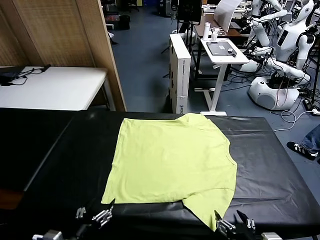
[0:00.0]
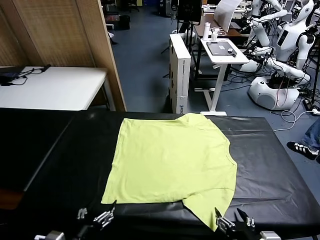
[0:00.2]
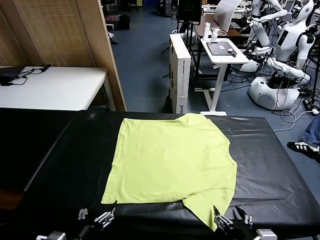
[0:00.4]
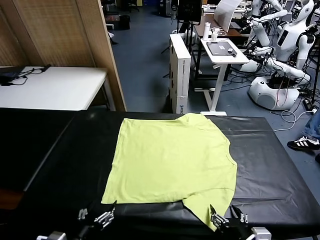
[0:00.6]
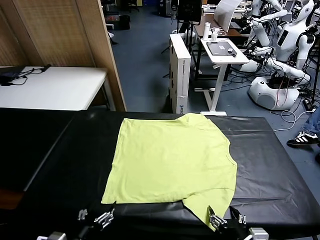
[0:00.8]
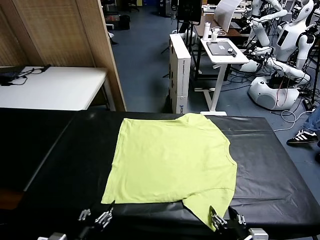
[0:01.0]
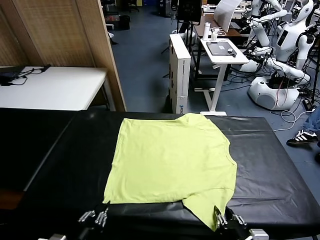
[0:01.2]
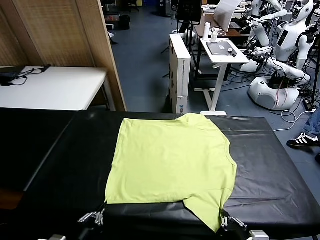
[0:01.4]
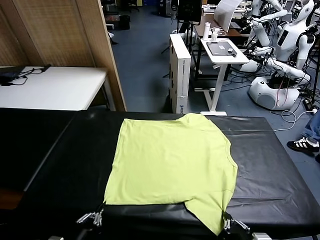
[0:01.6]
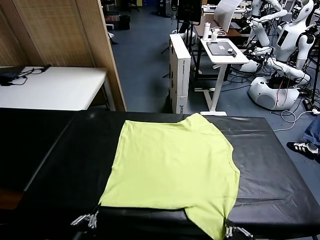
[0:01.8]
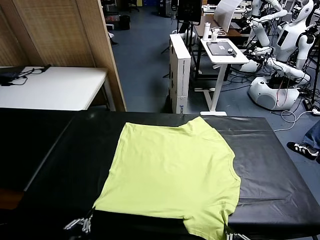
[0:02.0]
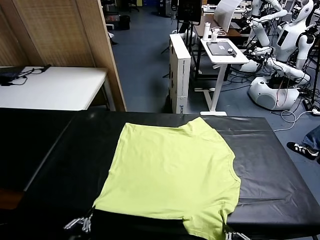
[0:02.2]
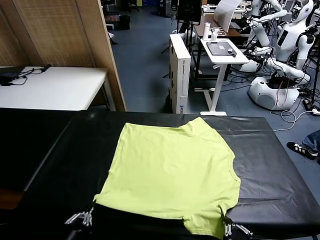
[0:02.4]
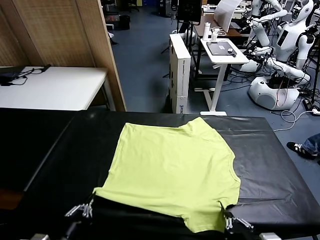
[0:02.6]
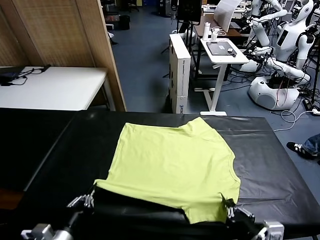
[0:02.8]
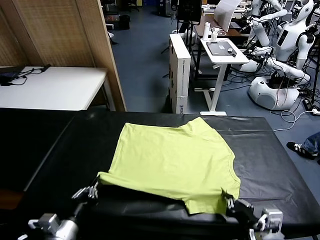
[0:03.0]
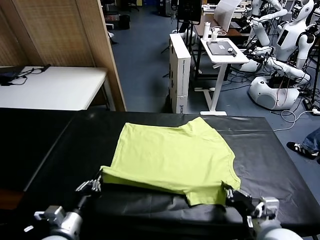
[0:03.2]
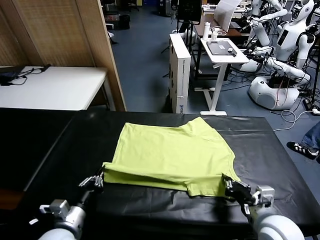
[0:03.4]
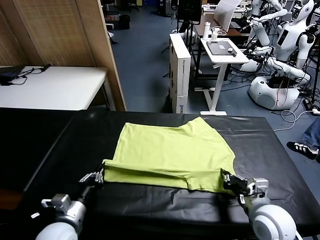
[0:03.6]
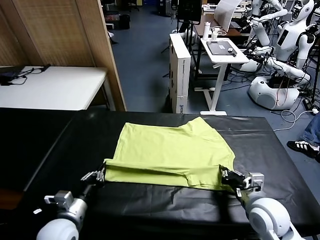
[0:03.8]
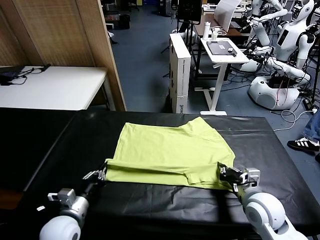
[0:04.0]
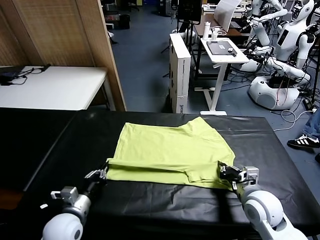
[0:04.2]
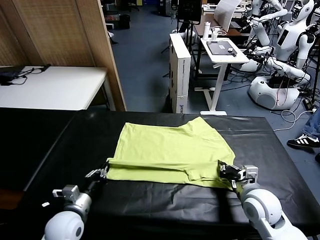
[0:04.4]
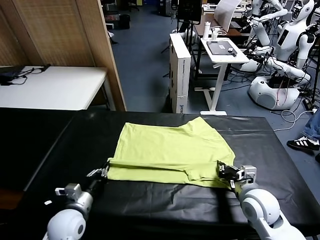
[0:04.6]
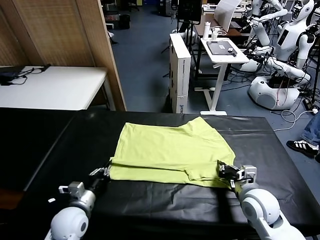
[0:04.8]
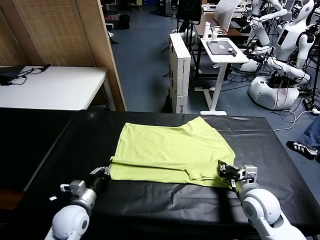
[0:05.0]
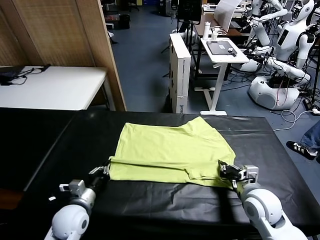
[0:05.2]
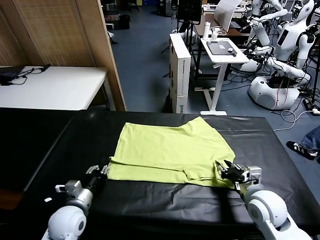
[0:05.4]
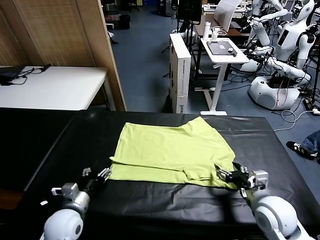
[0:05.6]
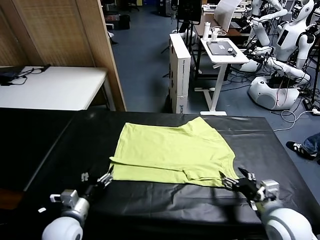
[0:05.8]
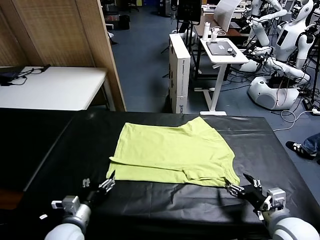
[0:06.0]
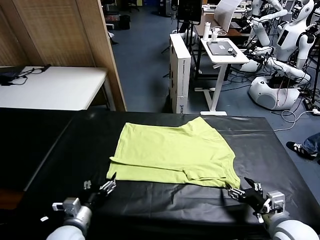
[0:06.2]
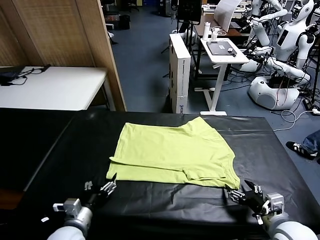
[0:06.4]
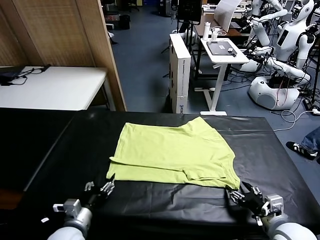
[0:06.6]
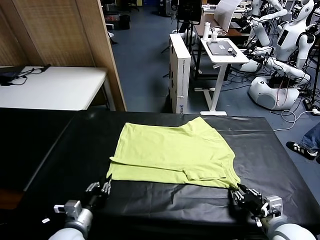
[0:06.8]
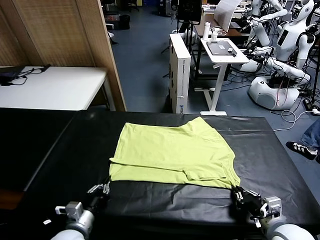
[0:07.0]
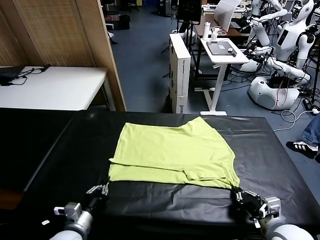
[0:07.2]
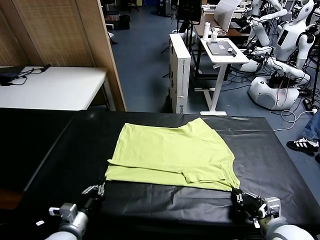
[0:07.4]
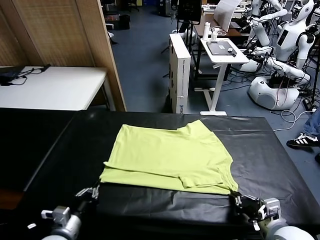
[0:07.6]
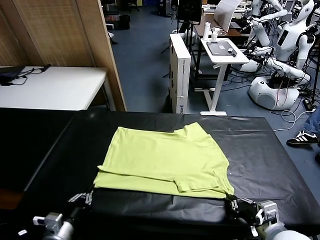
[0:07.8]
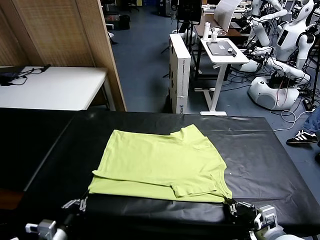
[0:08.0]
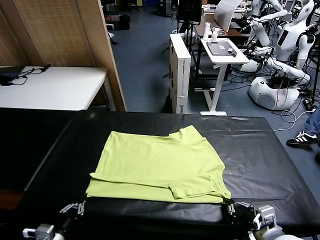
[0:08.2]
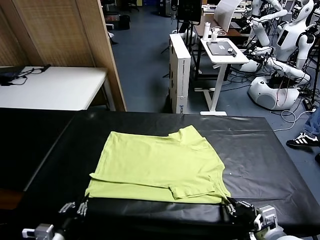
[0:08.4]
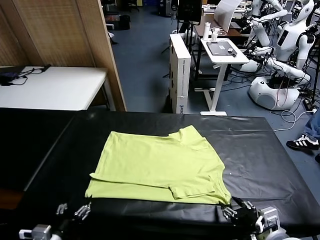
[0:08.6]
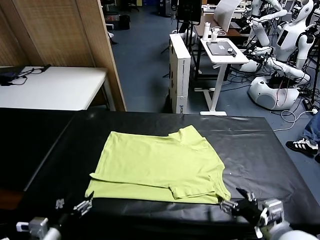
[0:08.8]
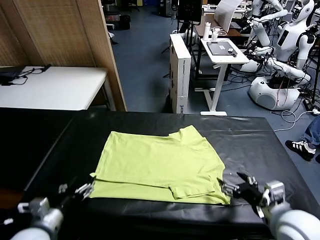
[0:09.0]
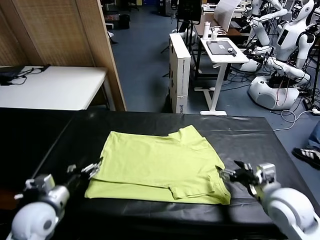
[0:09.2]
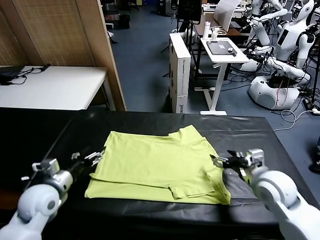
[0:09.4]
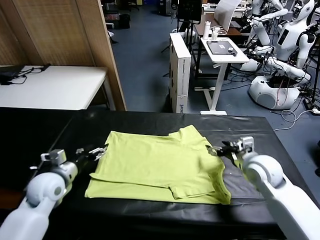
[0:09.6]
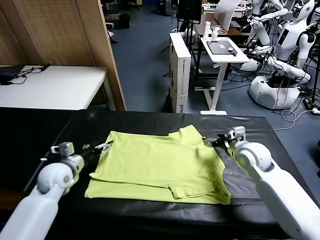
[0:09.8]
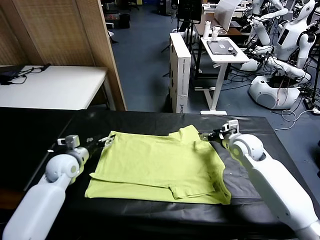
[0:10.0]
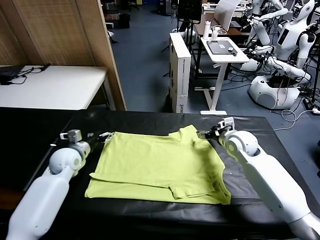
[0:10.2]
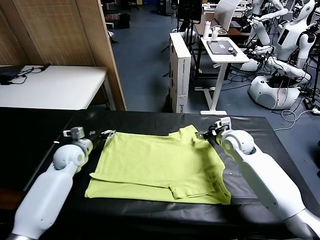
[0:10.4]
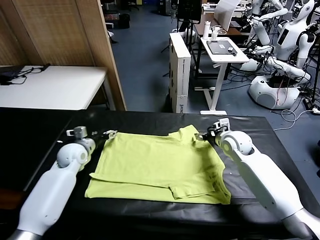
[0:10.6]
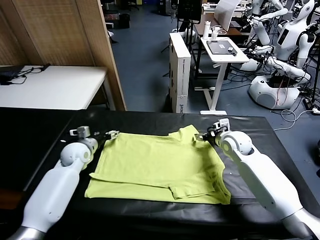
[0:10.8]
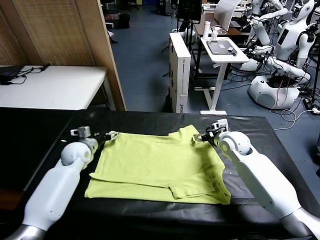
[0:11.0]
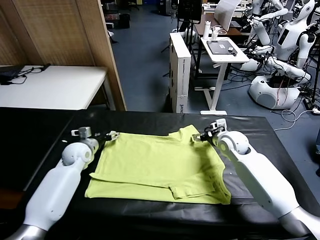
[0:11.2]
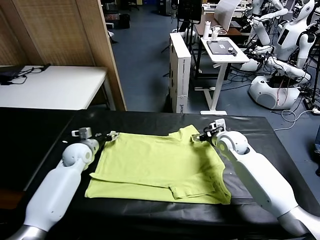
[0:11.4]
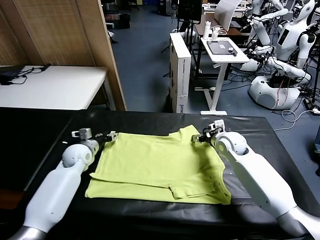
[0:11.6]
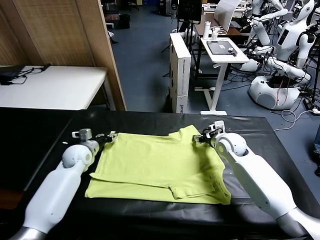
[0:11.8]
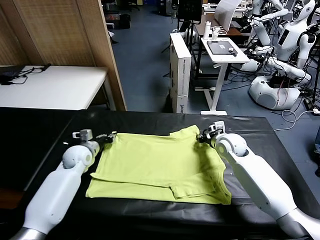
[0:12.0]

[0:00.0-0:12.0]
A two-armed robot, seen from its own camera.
Task of the whole recording: fold and organize the clothes.
Step, 0.0 to 1.4 s: use both grippers simultaneously to clamp the lower edge of the clothing fabric.
Step, 1.6 to 5.4 s: use both grippers to drag the lower edge of the fabric forward and fold it over the upper edge.
Step, 5.6 to 8.6 s: Drag the clothes downward with both gripper.
1.6 to 3.0 s: The two grippers go roughly 10 cm forward.
3.0 to 4.4 s: Both grippers travel together forward, about 10 cm.
4.4 to 6.0 s: The left gripper travels backward by approximately 5 cm, and opens up. The right gripper travels backward and to the right by roughly 10 cm, and opens up.
6.0 to 7.6 s: The right gripper ends up roughly 5 cm from where it was, and closes up; the left gripper moves backward, about 5 cm, and closes up.
7.6 to 9.0 s: The right gripper shifts about 10 cm forward, and opens. Meanwhile the left gripper goes roughly 15 cm forward and upward, and opens up.
9.0 to 10.4 s: The grippers both shift forward by roughly 20 cm.
10.4 to 12.0 s: The left gripper closes up; the right gripper closes.

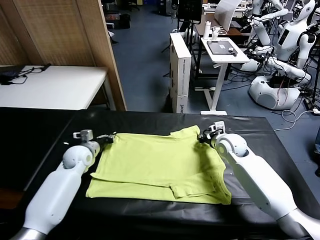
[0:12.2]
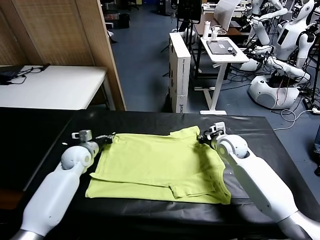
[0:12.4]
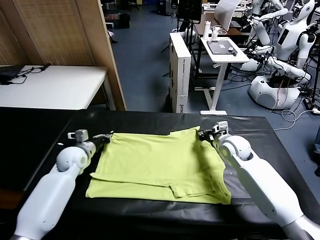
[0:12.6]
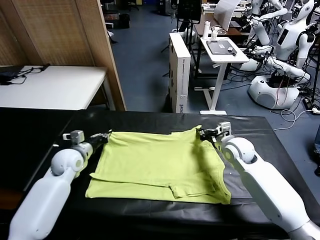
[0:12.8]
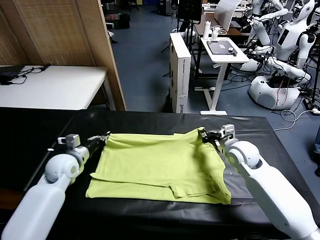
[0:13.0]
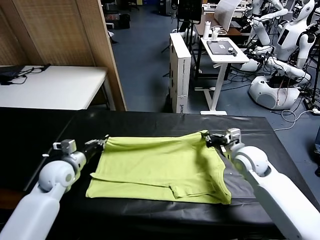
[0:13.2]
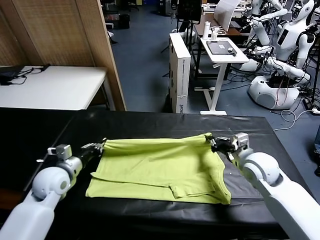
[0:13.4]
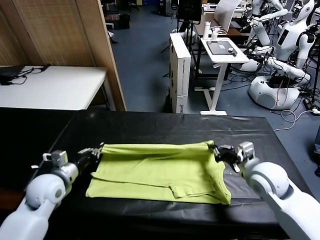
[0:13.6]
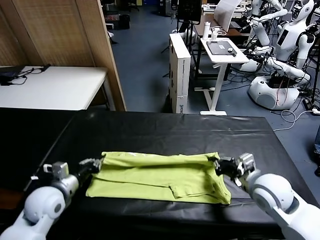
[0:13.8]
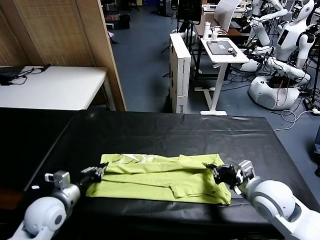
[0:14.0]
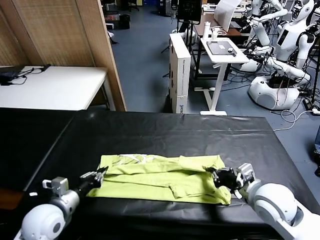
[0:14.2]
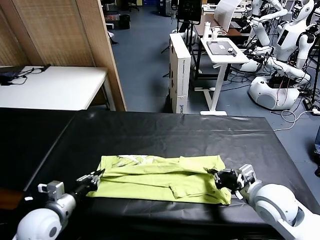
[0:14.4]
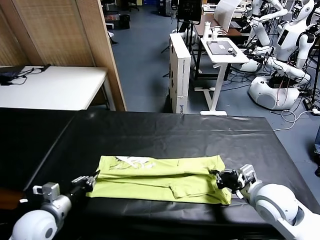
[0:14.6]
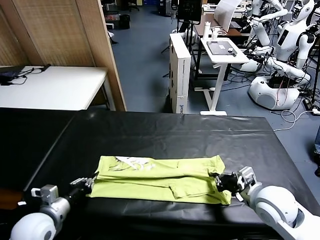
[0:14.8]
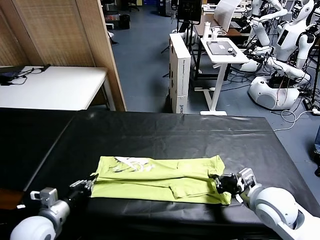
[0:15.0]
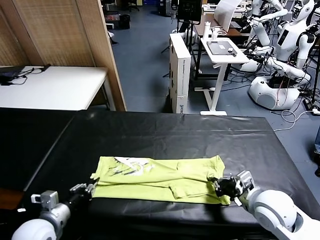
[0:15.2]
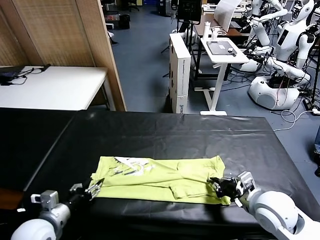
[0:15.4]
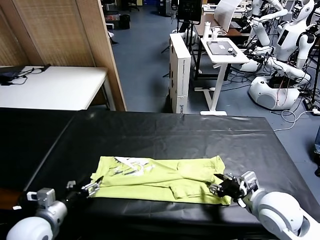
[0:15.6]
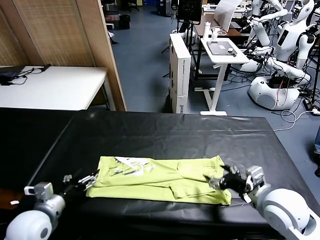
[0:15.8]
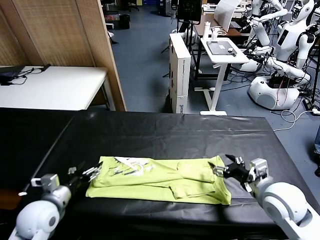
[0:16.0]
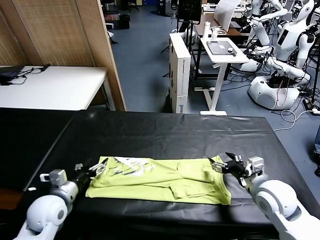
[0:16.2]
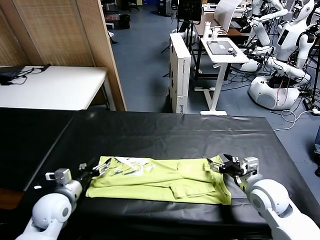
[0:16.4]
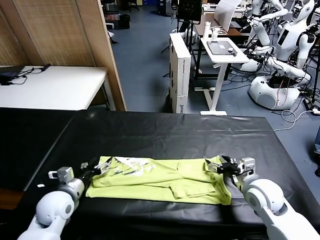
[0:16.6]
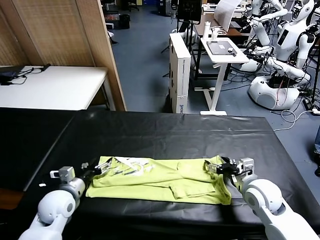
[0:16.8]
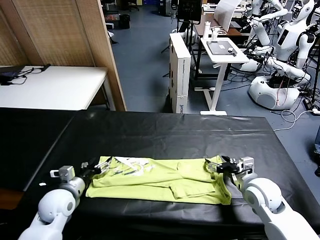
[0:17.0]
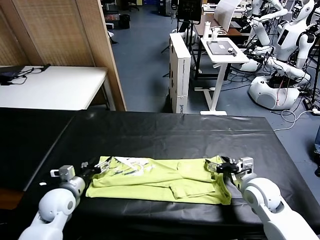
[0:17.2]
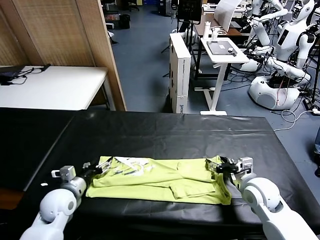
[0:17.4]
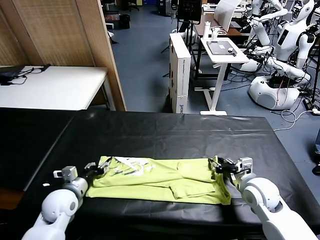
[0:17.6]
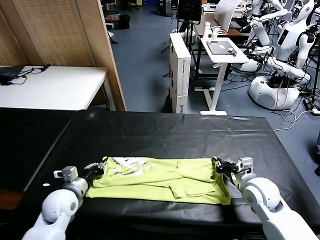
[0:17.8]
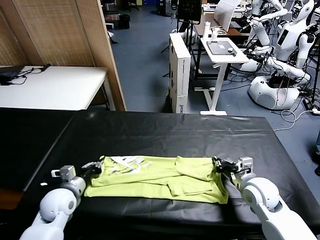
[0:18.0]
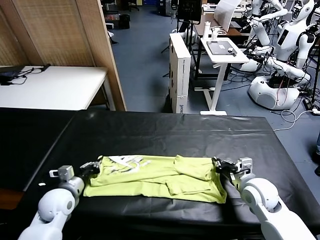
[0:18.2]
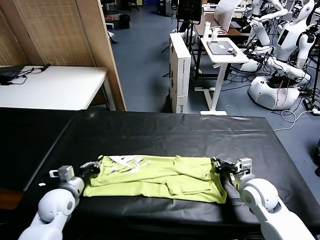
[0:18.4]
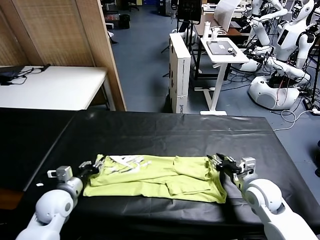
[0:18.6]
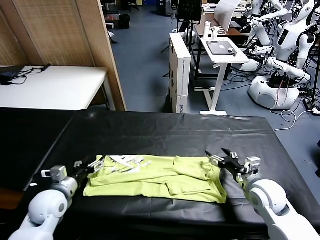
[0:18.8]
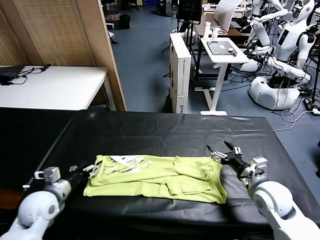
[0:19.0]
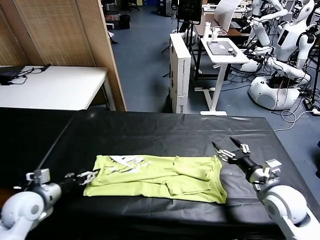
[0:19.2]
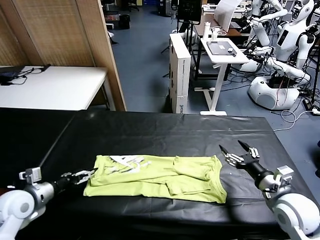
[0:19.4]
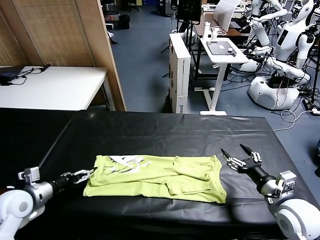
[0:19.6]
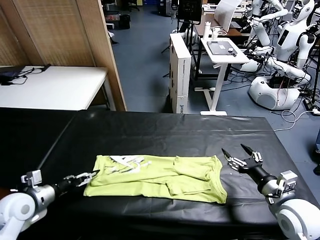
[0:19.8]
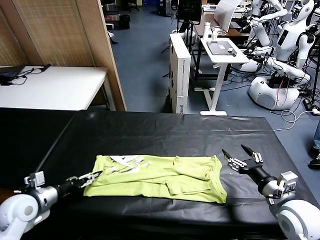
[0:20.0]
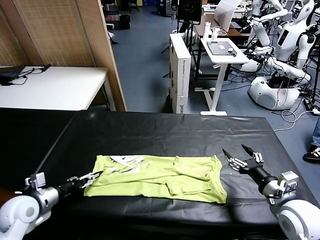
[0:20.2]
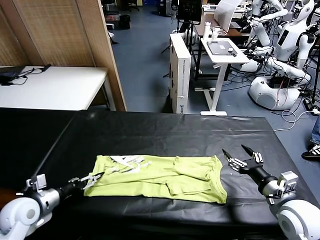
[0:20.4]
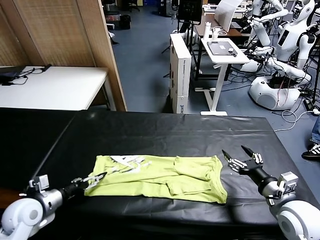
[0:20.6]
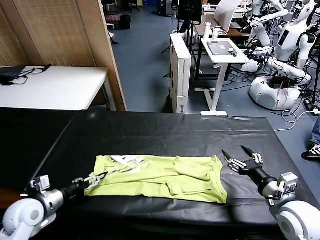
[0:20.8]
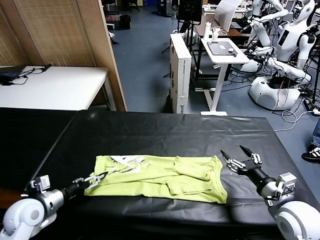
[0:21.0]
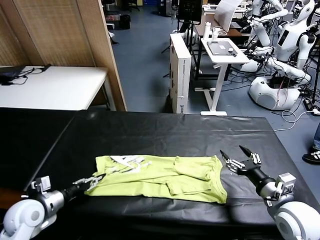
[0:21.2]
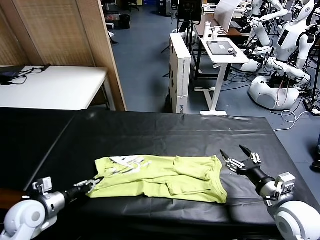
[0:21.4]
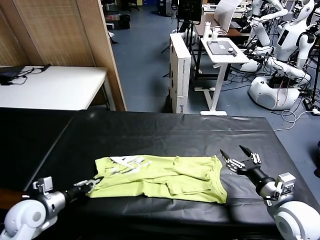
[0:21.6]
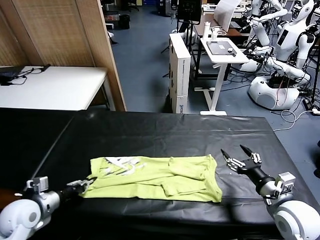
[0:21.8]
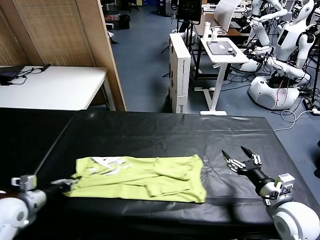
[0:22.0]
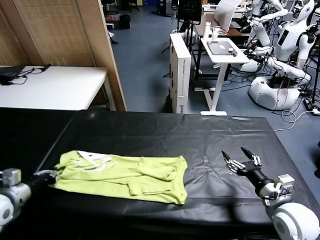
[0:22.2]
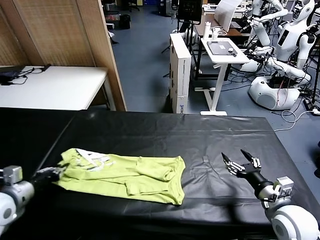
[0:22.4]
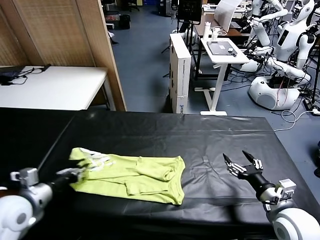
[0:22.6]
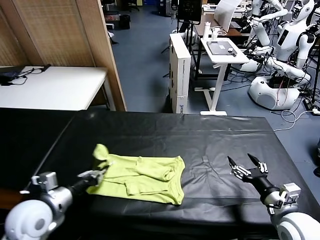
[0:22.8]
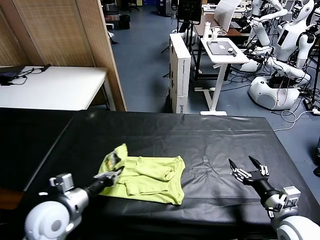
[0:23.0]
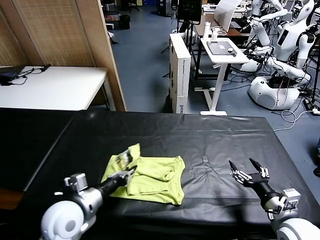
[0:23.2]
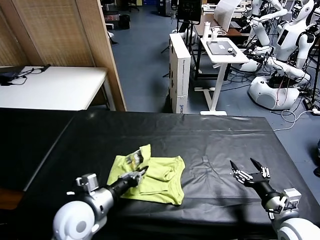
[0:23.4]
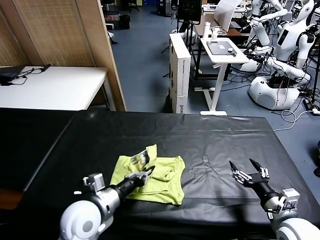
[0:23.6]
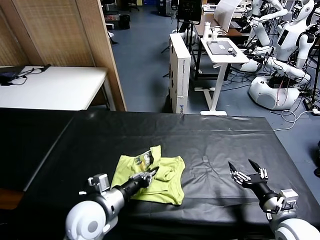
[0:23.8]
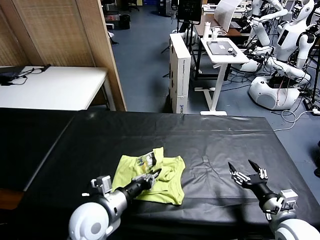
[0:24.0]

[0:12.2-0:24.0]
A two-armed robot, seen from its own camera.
Task of the whole recording: fold and organize the clothes.
Step, 12.2 to 15.6 s: use both grippers to drag the upper edge of the fabric backward and fold it over the lower edge.
Step, 15.8 to 21.4 s: use the left gripper to clamp the left edge of the fabric.
12.2 to 13.6 s: The two grippers go some 20 cm backward.
13.6 to 15.2 s: The left gripper travels backward by some 10 cm, and opens.
15.2 to 16.6 s: The left gripper is displaced forward by approximately 10 cm. The right gripper is displaced forward by approximately 5 cm, and opens up.
16.6 to 18.2 s: The left gripper closes. The right gripper closes.
18.2 to 19.6 s: The left gripper is displaced to the left by approximately 10 cm, and opens; the right gripper shifts about 10 cm backward, upward and to the right, and opens up.
19.6 to 21.0 s: The left gripper closes its fingers.
21.0 to 22.6 s: The left gripper goes about 10 cm upward and to the right, and closes up.
22.6 to 24.0 s: The left gripper is displaced to the right by roughly 15 cm.
